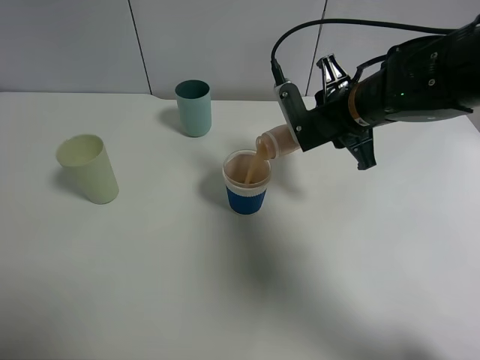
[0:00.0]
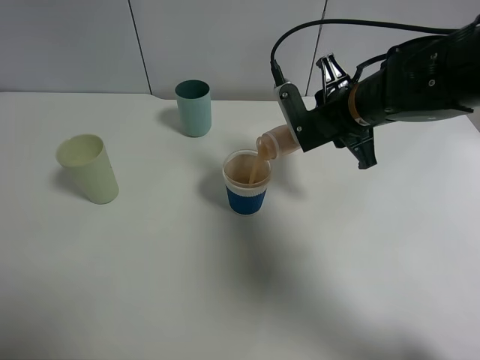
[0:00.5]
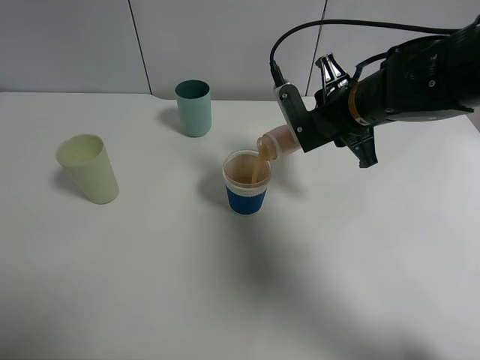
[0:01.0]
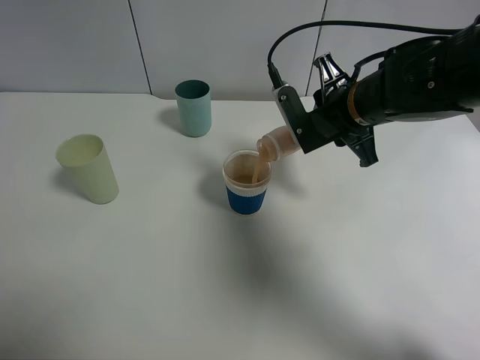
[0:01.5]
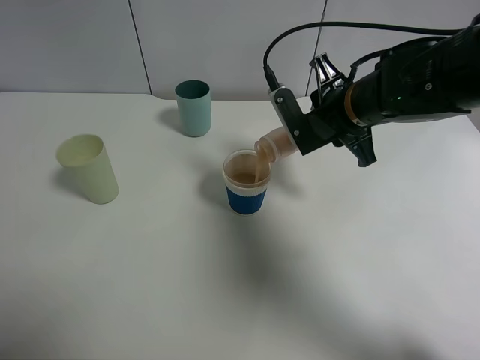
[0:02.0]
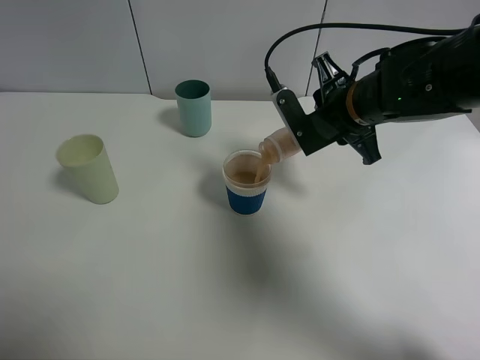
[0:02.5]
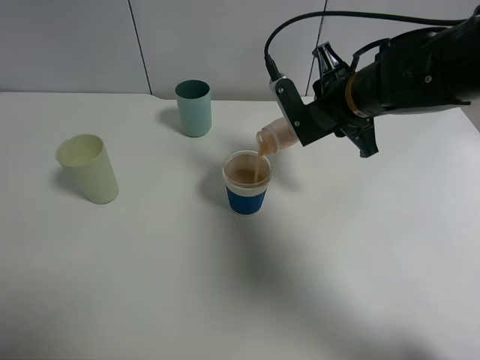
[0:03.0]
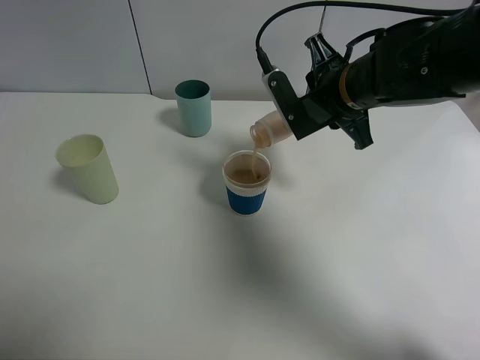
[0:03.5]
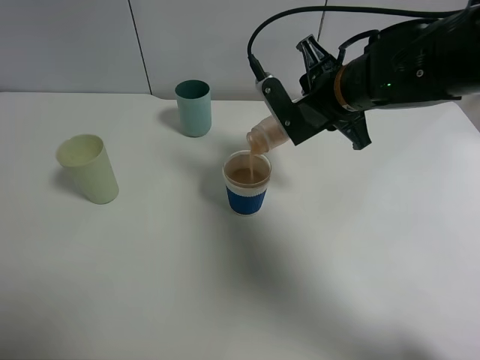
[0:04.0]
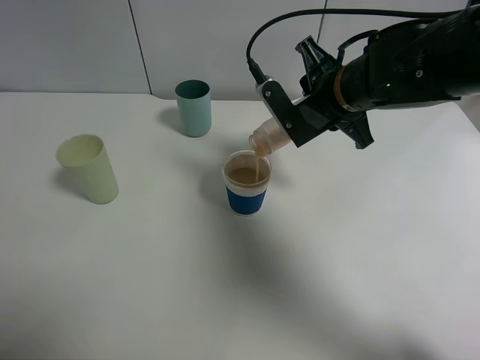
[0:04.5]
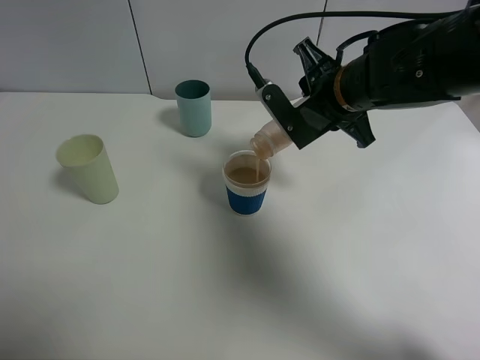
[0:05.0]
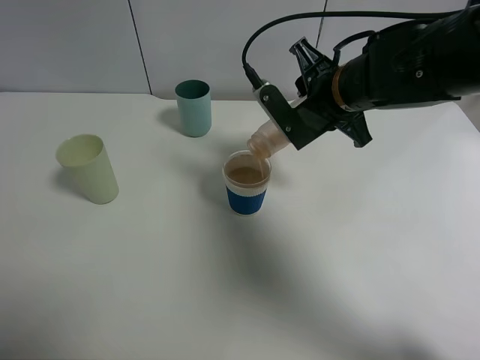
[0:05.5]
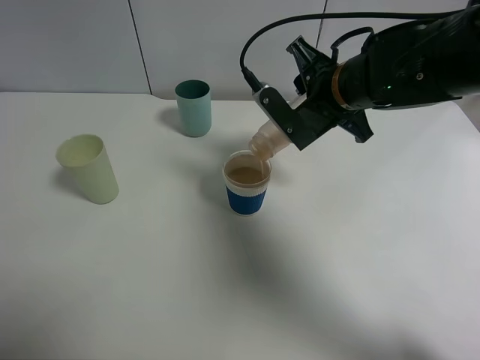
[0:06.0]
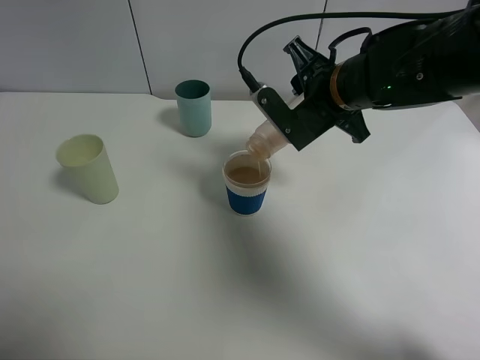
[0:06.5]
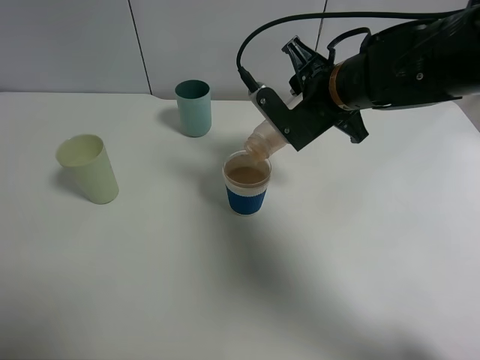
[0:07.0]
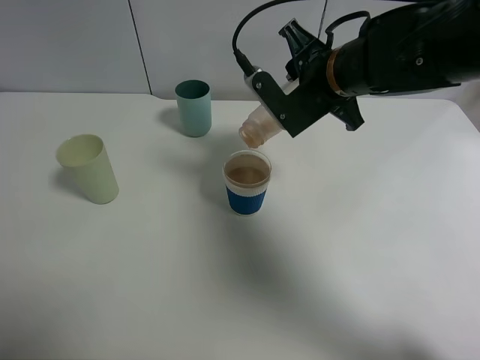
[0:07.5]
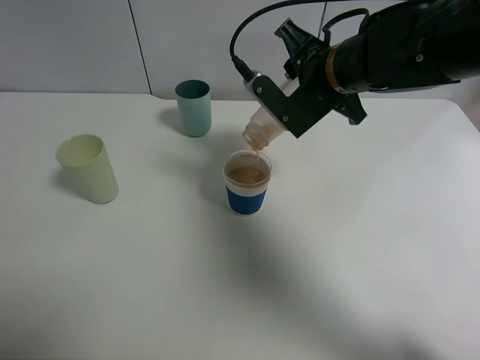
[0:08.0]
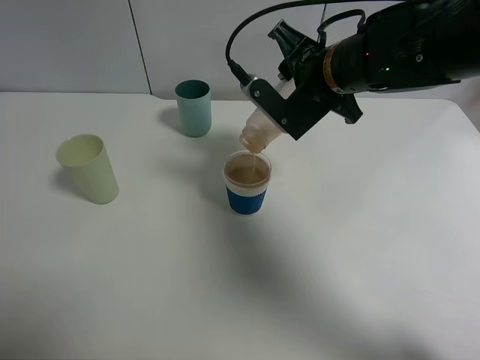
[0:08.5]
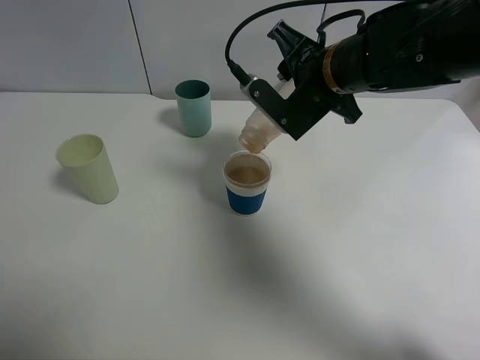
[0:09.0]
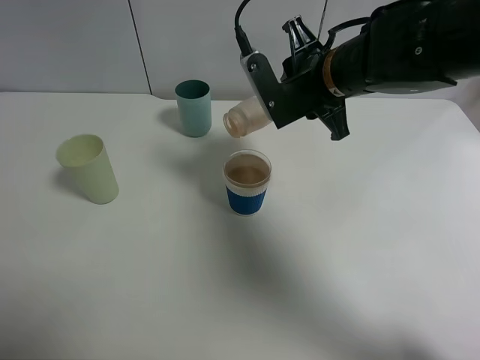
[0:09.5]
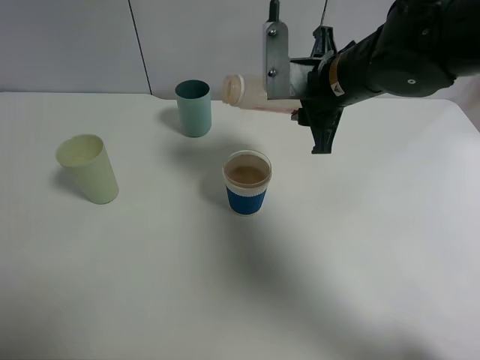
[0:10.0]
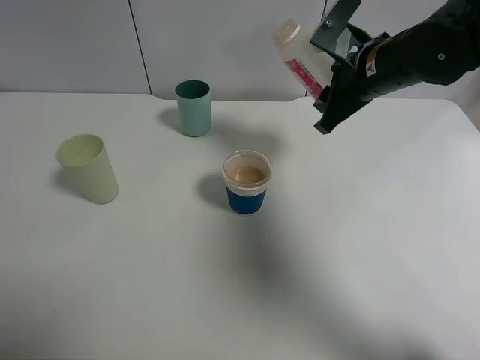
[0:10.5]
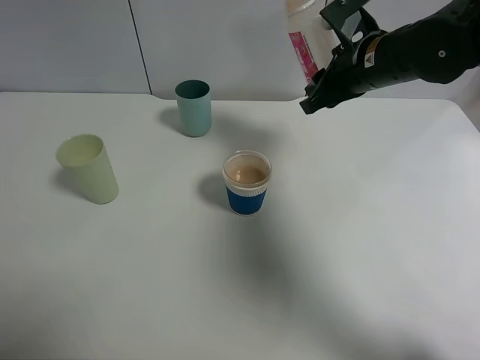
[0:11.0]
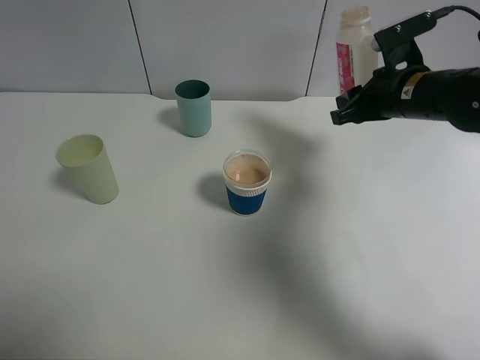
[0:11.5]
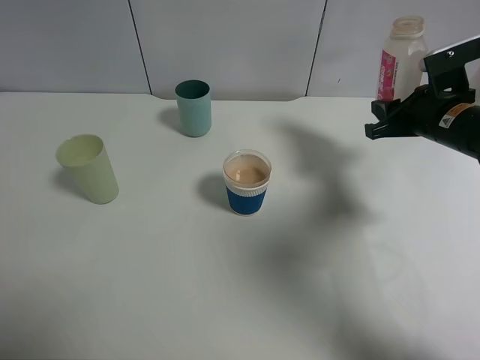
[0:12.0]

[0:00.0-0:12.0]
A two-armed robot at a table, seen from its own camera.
Task of the whole recording: use a clamp to hold the bottle of the drink, pour the beverage into a random cup, then clamp the cup containing the drink and pour the drink into another random cup.
Step, 0:00.0 to 0:10.0: Pour the drink into the paper cup with right gripper.
0:00.0 to 0:02.0: Neither gripper changes place.
0:02.0 to 0:06.0: The grippers make only small movements.
0:06.0 to 0:08.0: The grippers move only a little.
0:10.0 to 0:12.0: The right gripper is displaced to the right by about 15 cm.

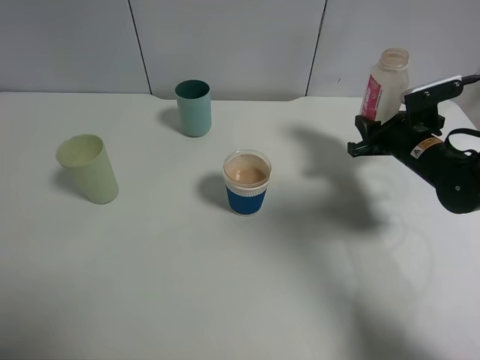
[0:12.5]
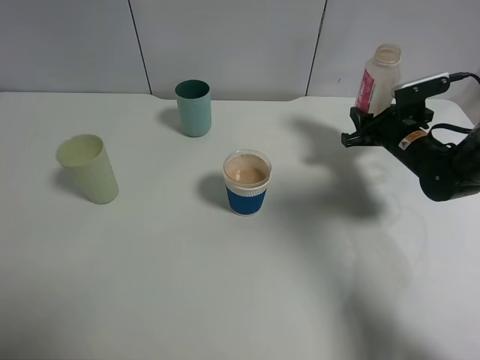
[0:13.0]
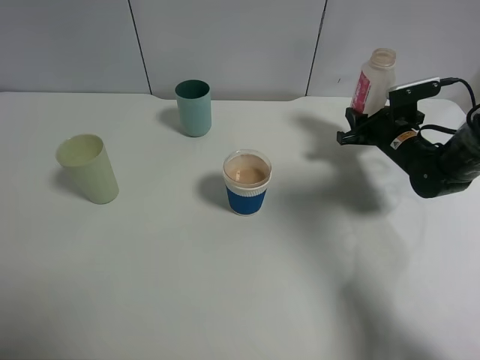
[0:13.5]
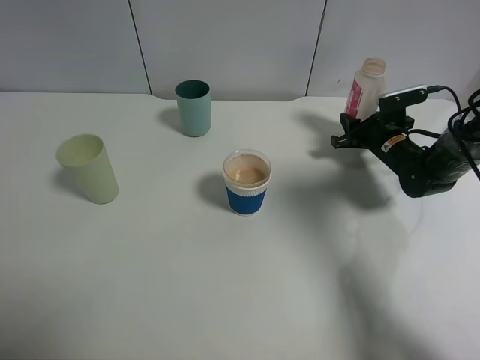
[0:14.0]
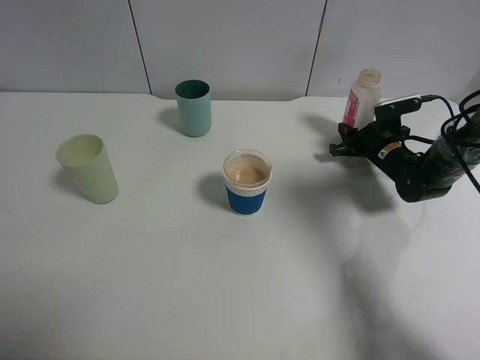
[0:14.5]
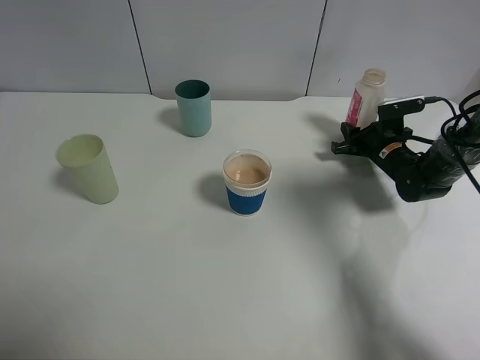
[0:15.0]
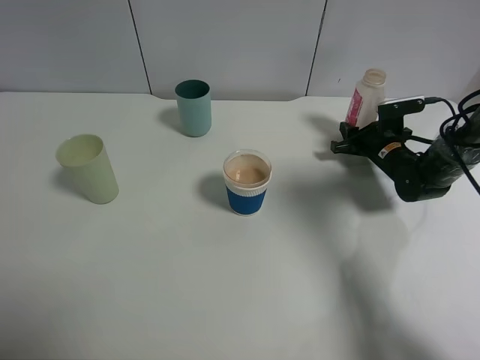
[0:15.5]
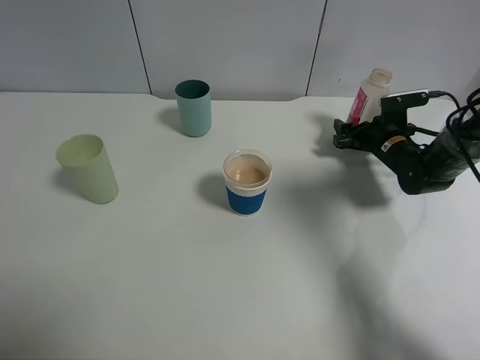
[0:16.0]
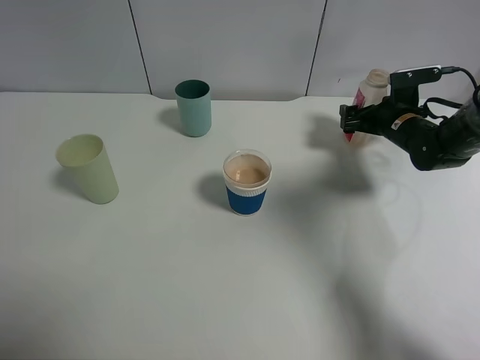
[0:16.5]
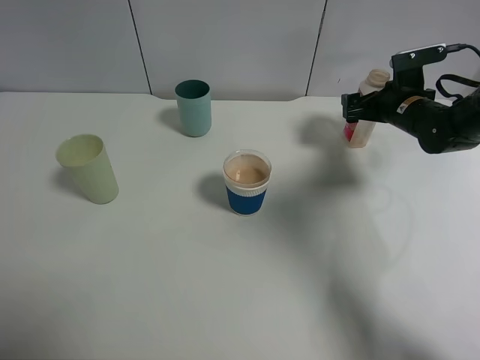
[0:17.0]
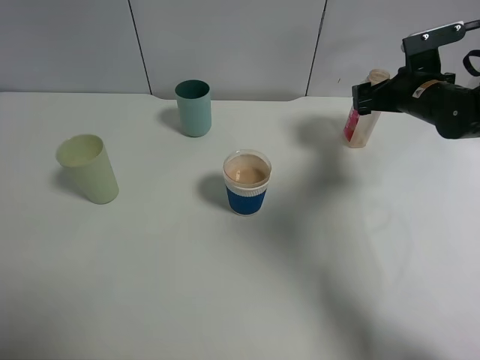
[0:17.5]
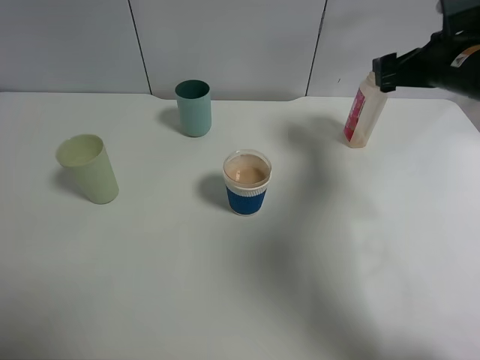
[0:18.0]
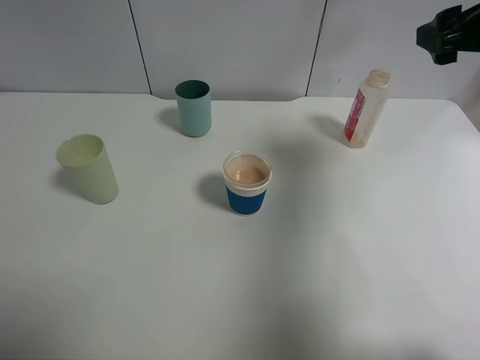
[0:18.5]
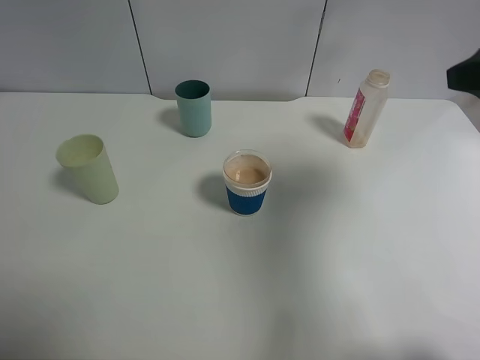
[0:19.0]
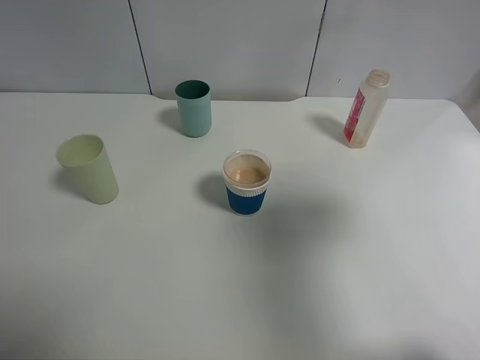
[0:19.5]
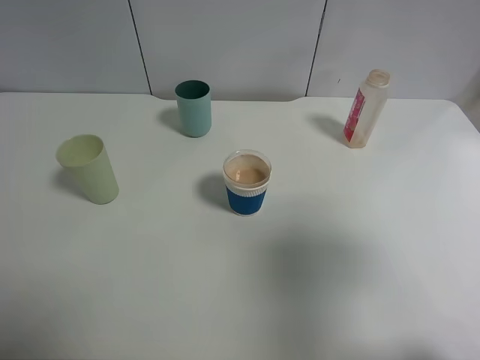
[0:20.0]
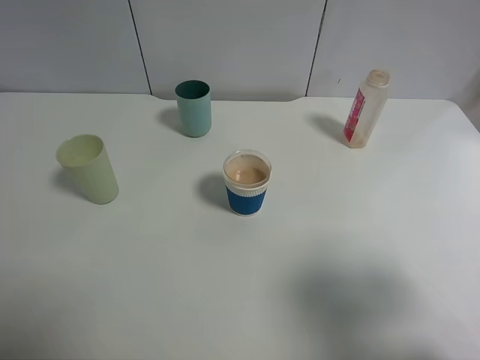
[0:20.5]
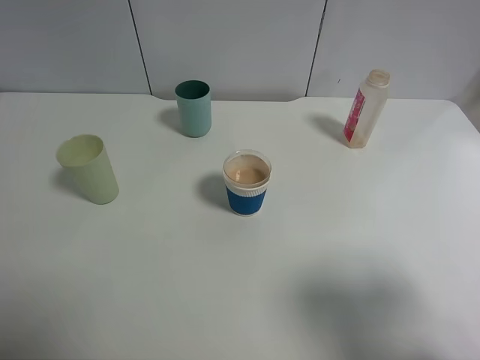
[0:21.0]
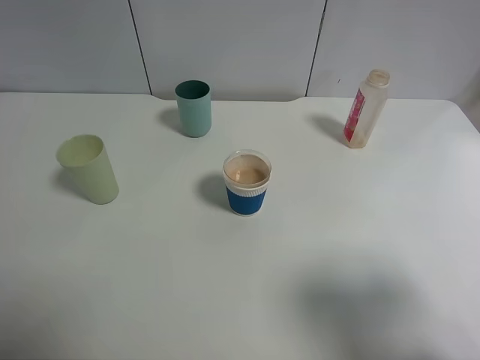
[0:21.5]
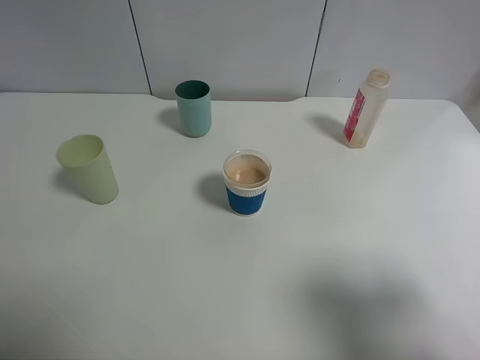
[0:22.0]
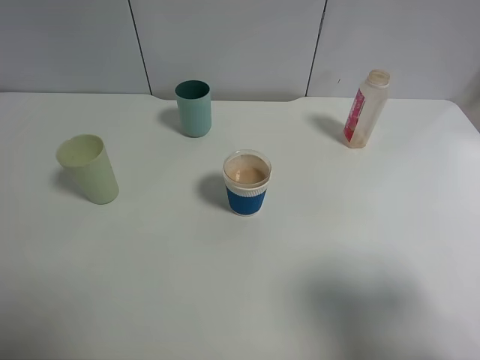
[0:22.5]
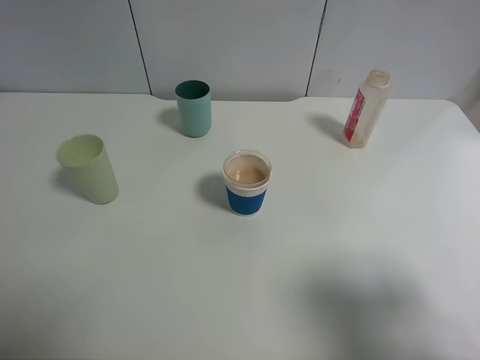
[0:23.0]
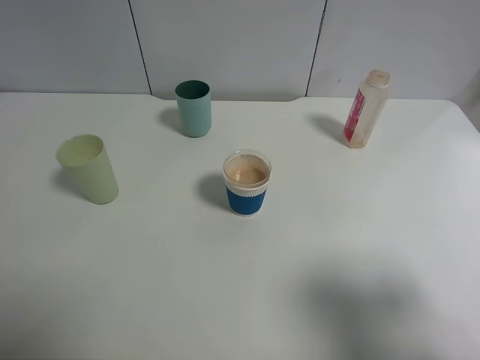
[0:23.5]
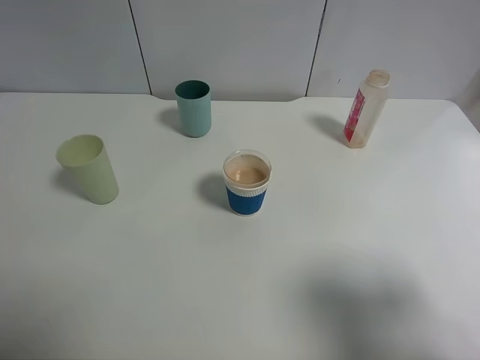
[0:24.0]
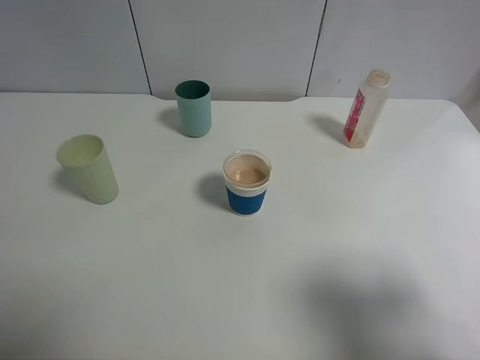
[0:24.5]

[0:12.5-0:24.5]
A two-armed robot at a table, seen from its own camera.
Task of the whole recording: use a clamp to hold the bottle of the drink, pour the beverage into a random cup, then clamp the cup containing the drink and pour the drink into another random cup.
Step, 0:12.5 to 0:17.5: Place the drink bottle on the table with right gripper.
0:12.5 to 0:14.5: The right gripper moves downward and forward, some 10 cm.
0:14.5 to 0:16.5: The right gripper is displaced upward by approximately 5 cm, and opens its fingers.
0:16.5 to 0:18.5: The right gripper heads upward and backward, covering some 25 cm.
0:18.5 to 0:20.5: The right gripper heads backward, covering some 25 cm.

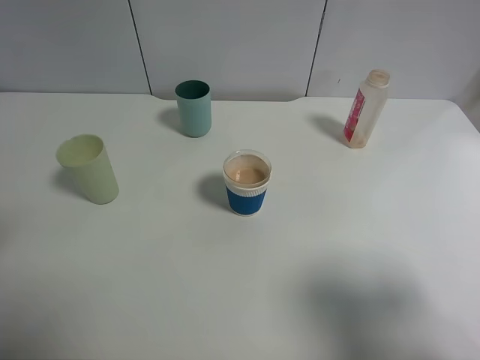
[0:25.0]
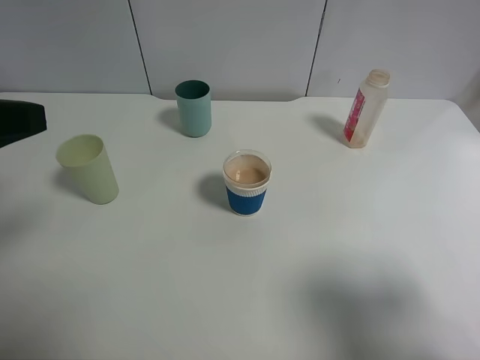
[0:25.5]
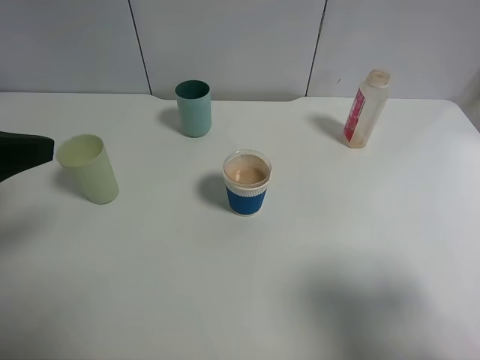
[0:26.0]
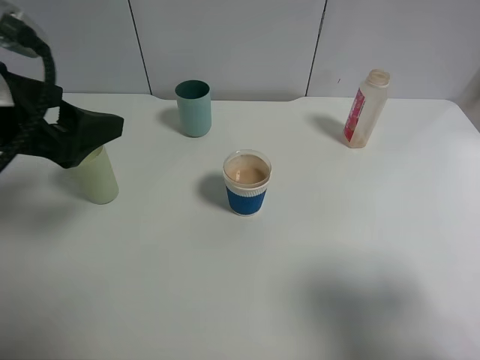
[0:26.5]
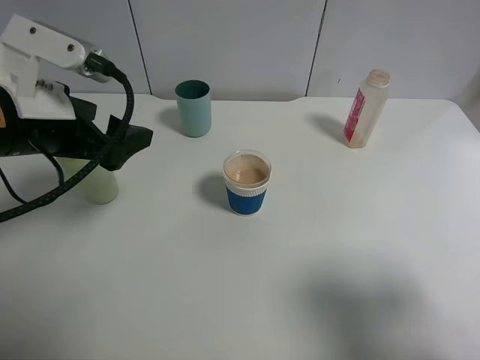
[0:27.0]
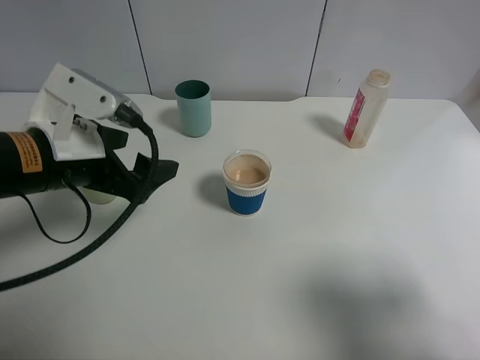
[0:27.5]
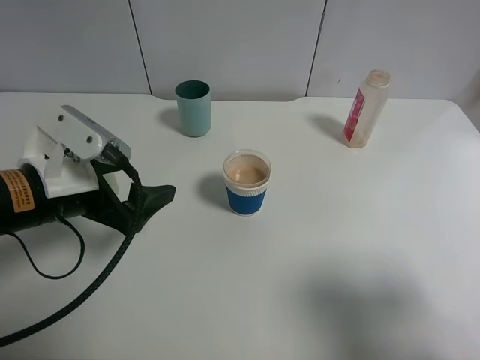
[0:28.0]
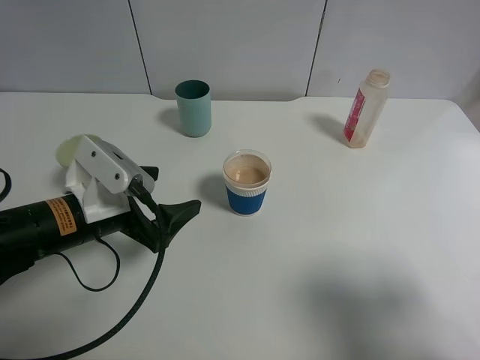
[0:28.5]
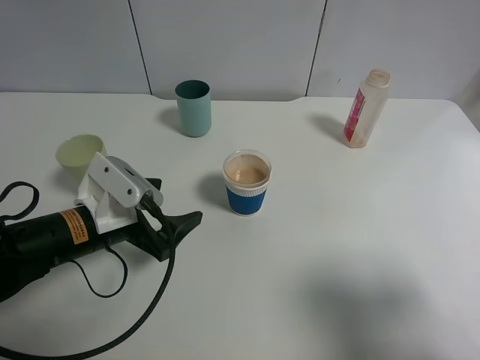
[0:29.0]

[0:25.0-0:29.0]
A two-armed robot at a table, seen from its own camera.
Task of the whole recording: use a clamp to hold the bottle of the drink, pour the beverage into a random cup, then clamp the cup containing the drink and pour the drink into another random cup.
0:25.0 to 0:27.0: The left gripper shifts roughly 15 cm forward, to the right and downward.
0:27.0 to 0:29.0: The left gripper heads downward, covering about 15 cm.
